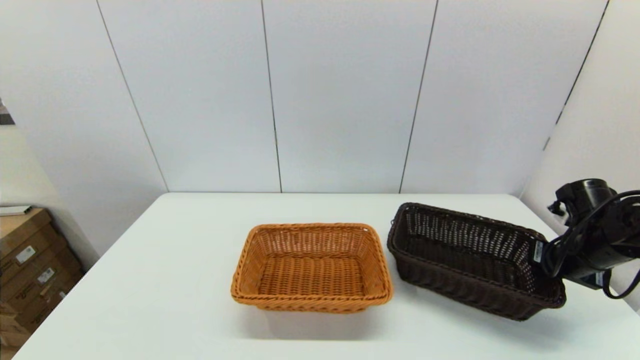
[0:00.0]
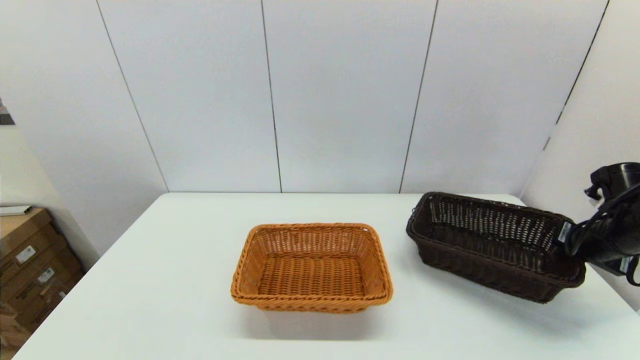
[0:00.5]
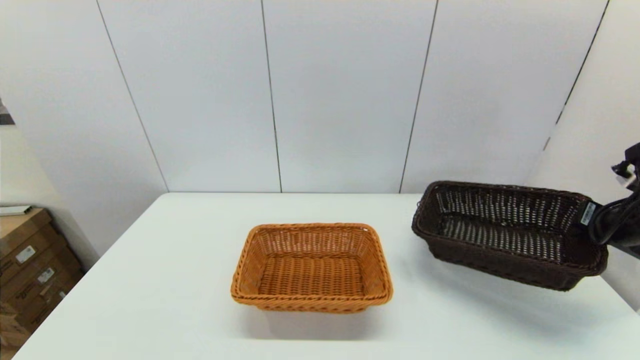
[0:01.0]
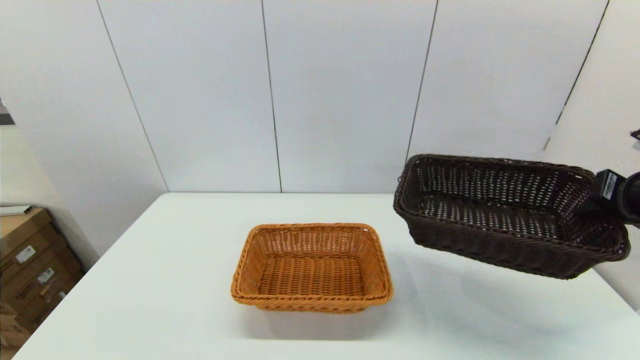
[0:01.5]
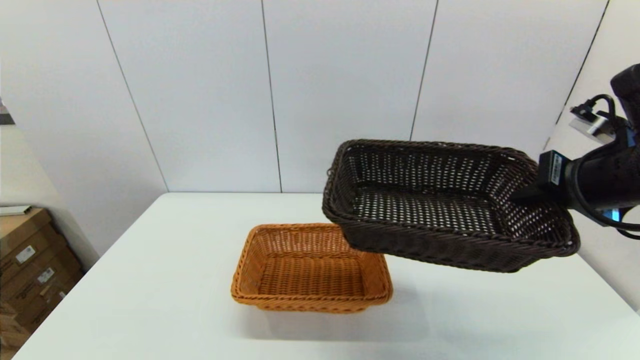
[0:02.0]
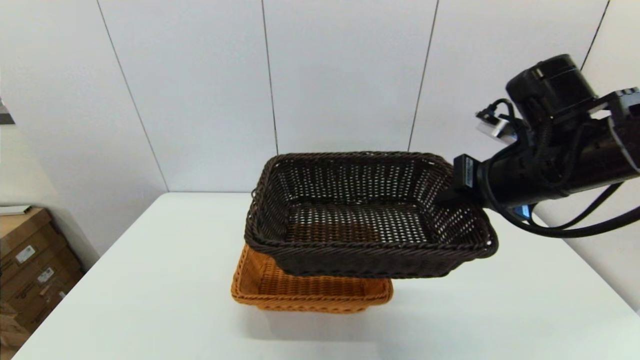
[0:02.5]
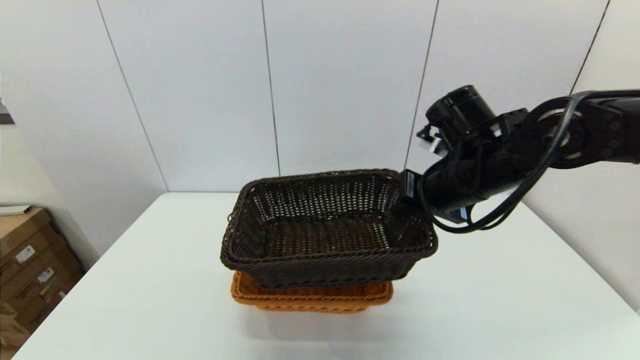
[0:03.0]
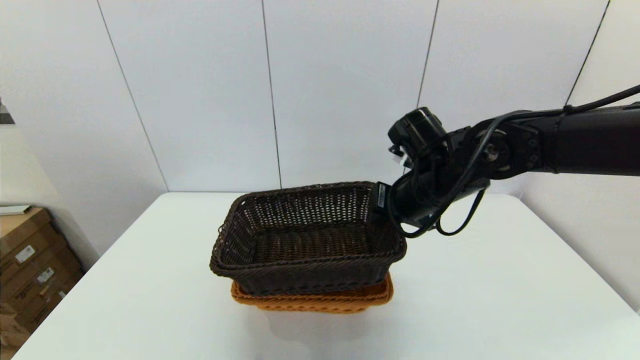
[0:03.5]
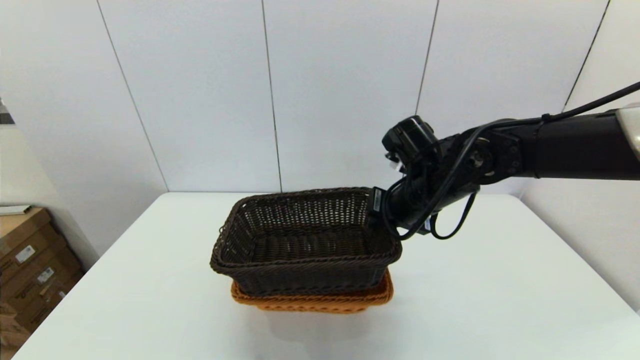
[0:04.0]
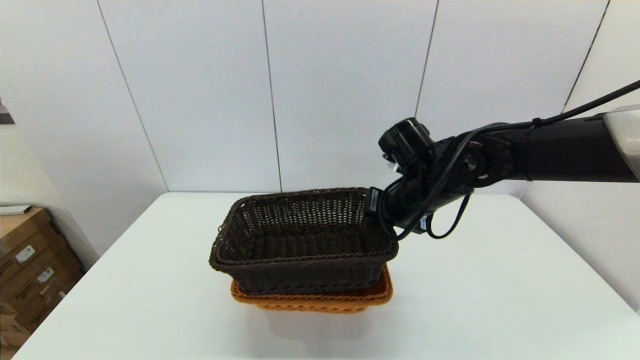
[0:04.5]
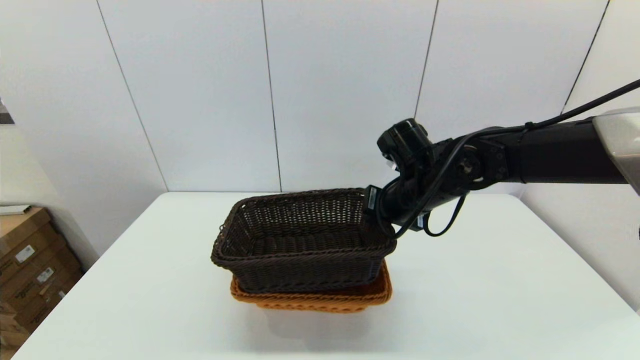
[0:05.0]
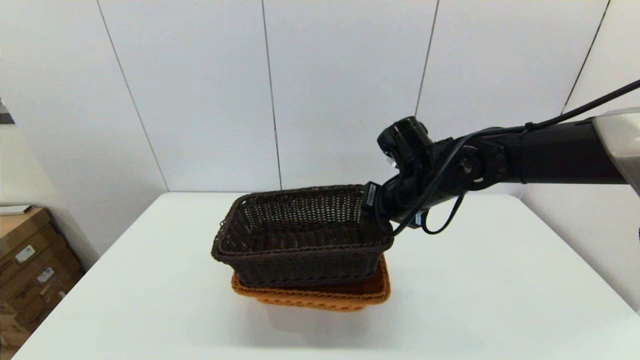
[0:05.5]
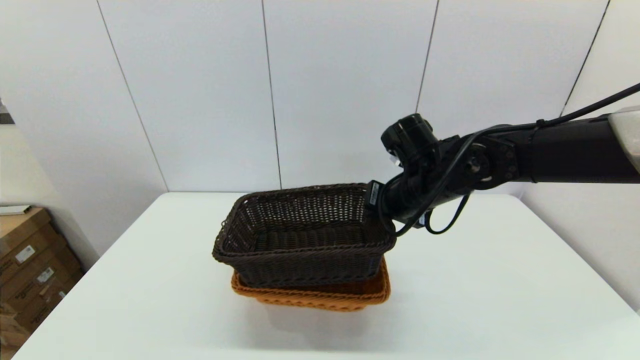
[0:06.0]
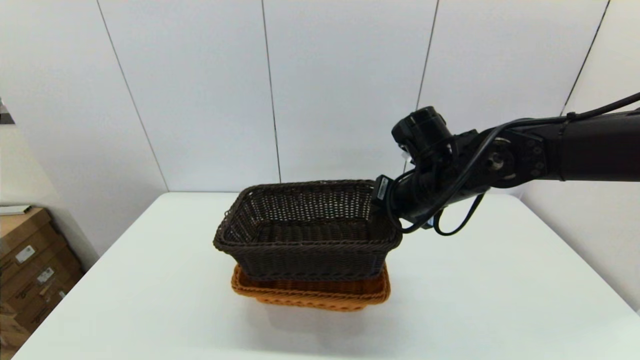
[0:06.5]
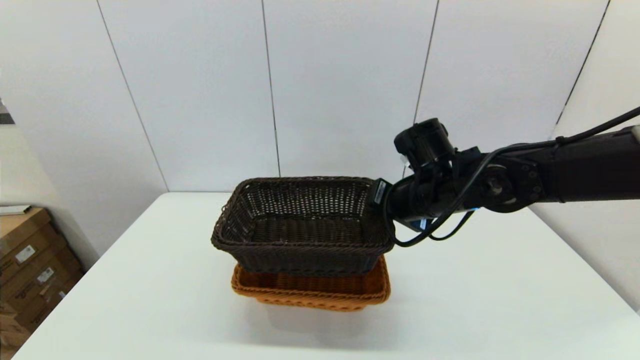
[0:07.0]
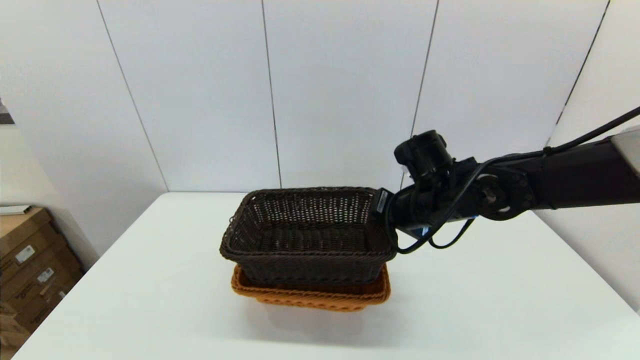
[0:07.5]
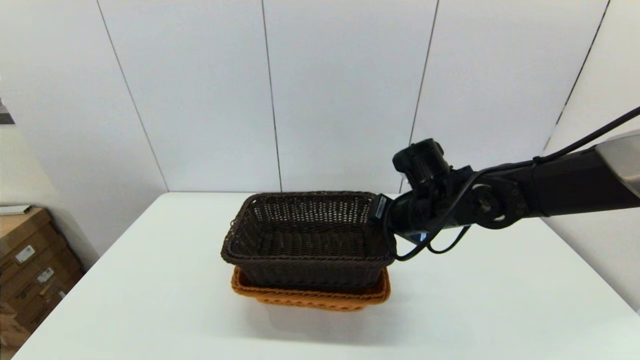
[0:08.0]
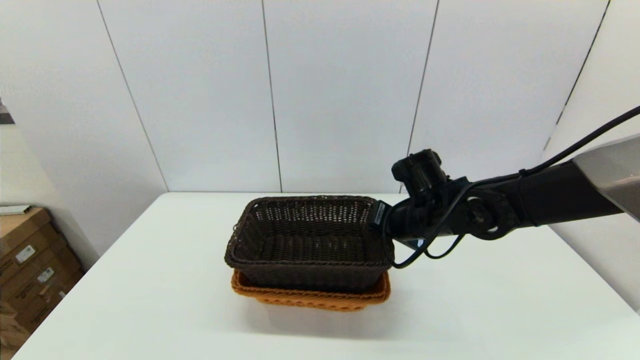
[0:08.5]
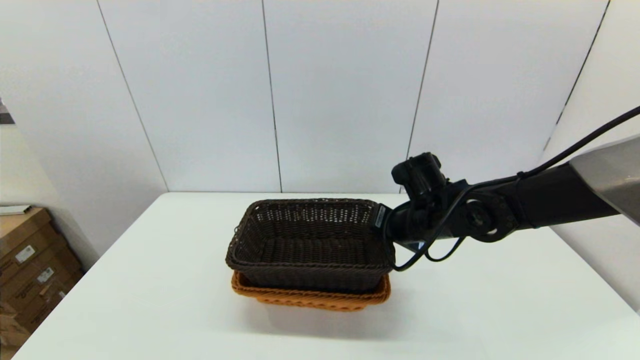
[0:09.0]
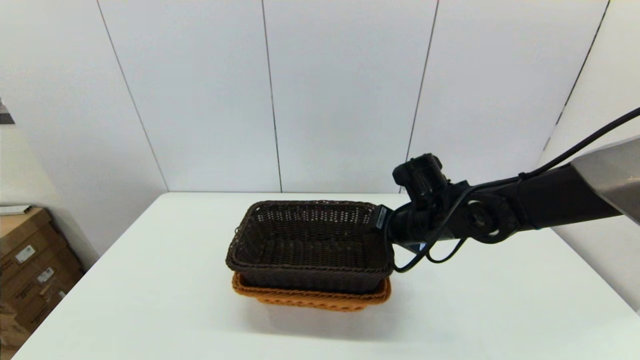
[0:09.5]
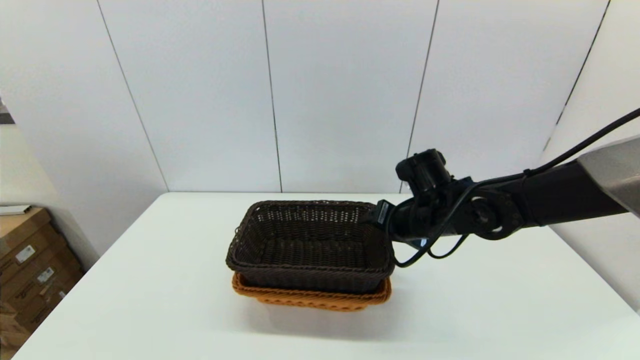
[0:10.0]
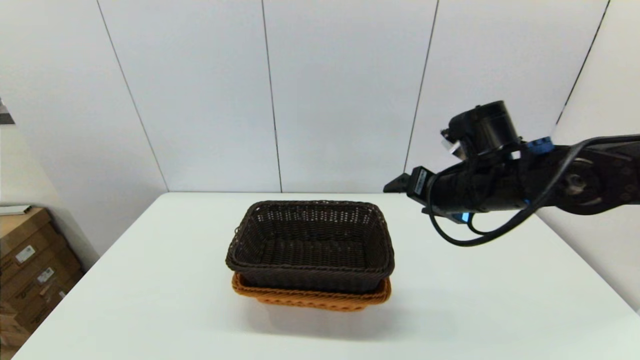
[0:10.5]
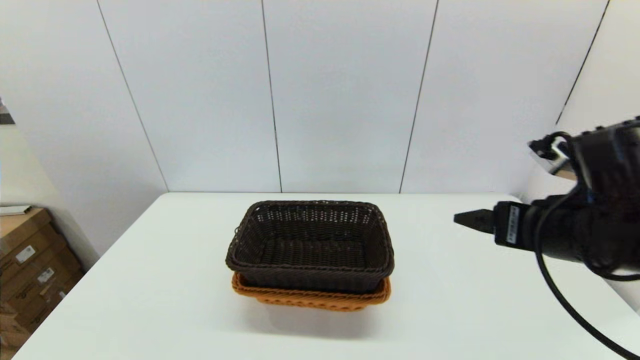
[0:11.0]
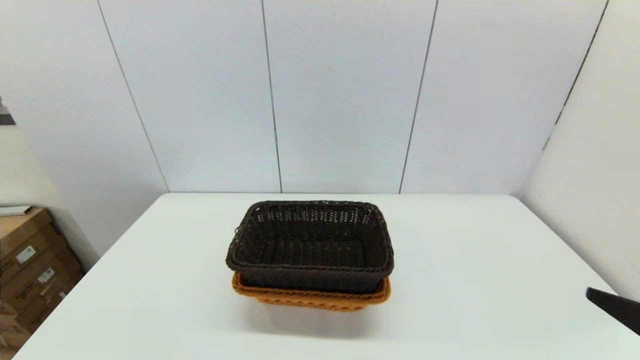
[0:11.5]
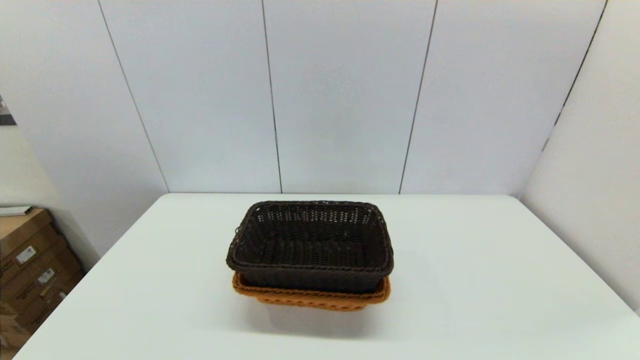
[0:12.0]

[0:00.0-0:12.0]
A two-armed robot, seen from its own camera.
Task of the whole recording: stack a basket on top of another basket.
Step, 0:00.0 to 0:10.5: Place the dark basket into the light color basket with the right gripper.
0:00.0 to 0:02.0: The right gripper shifts roughly 20 cm upward and to the left.
0:02.0 to 0:04.0: The right gripper is displaced to the left, forward and downward by some 20 cm.
0:04.0 to 0:08.0: There are only small adjustments of the grippers.
0:08.0 to 0:10.0: The right gripper opens its fingers.
0:10.0 to 0:12.0: The right gripper heads backward and to the right, covering about 40 cm.

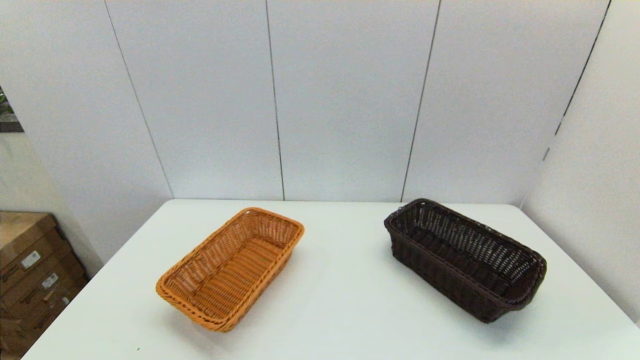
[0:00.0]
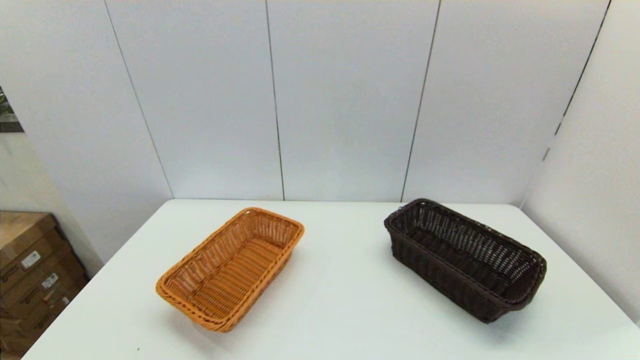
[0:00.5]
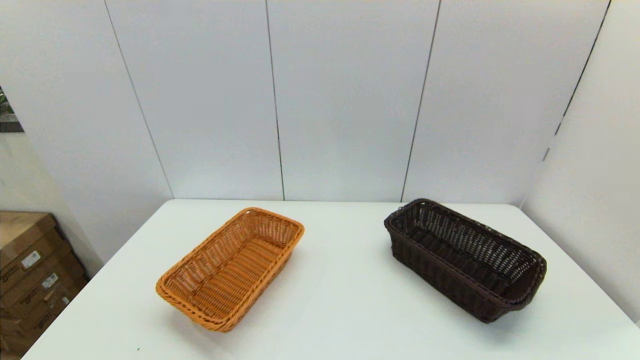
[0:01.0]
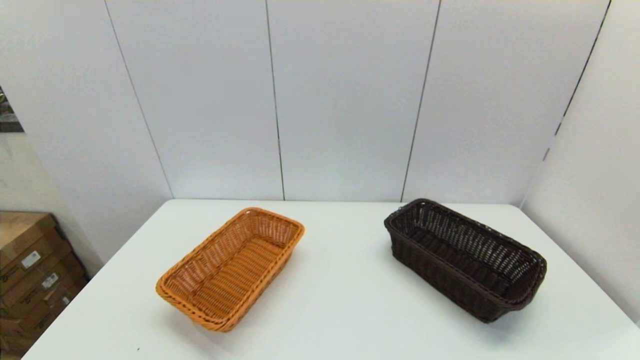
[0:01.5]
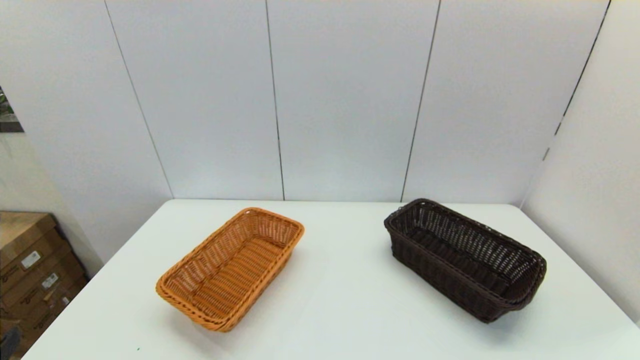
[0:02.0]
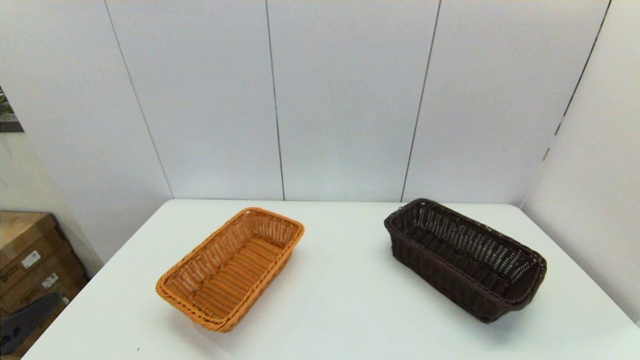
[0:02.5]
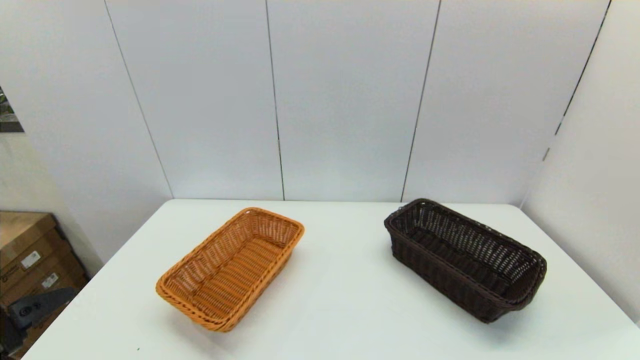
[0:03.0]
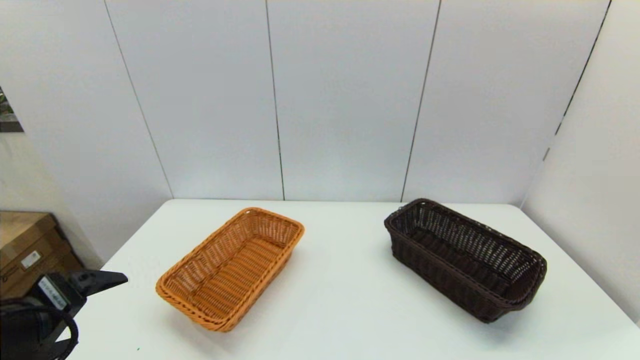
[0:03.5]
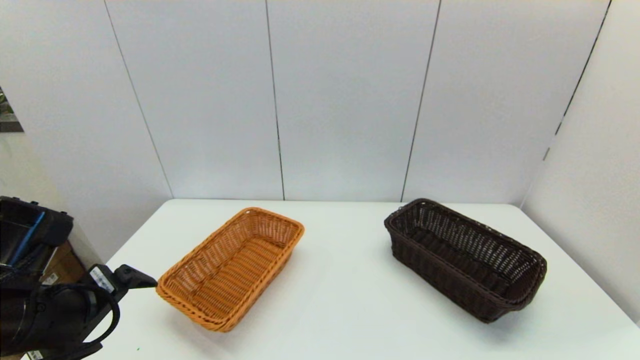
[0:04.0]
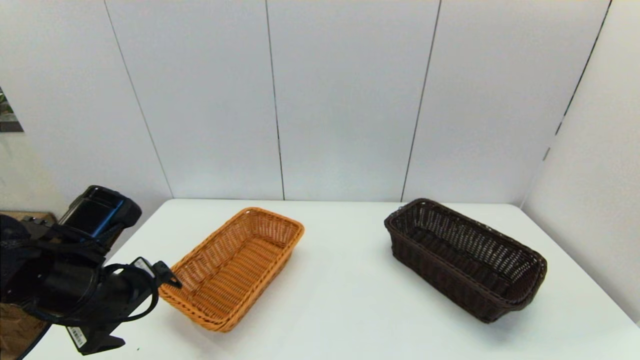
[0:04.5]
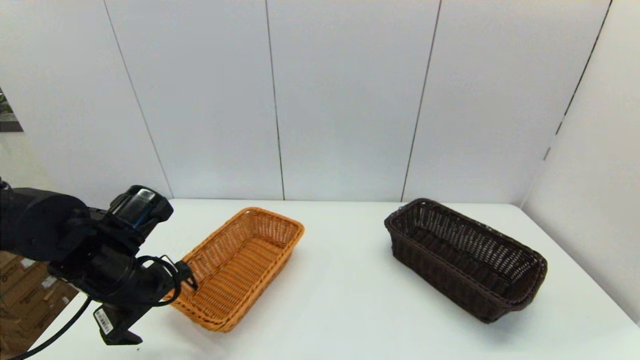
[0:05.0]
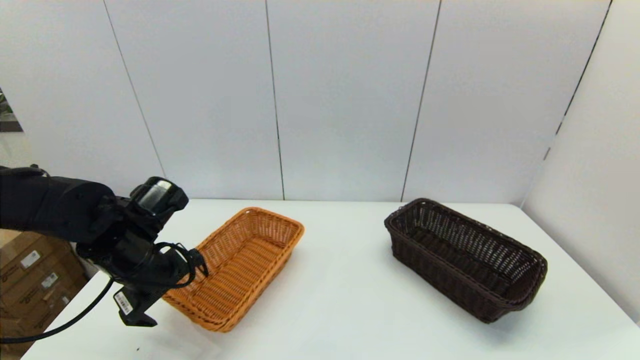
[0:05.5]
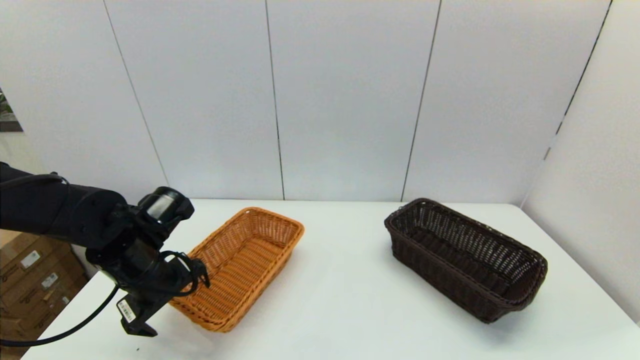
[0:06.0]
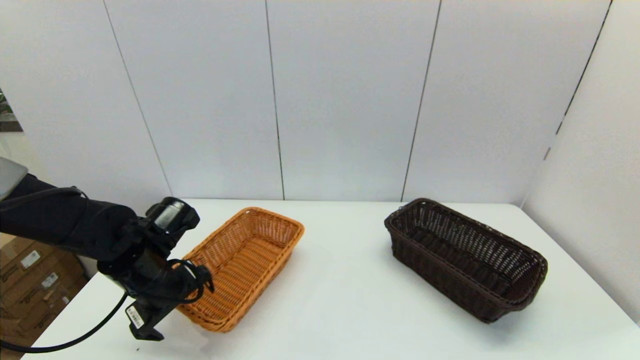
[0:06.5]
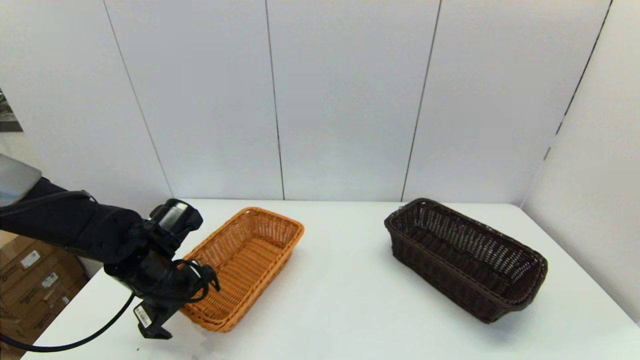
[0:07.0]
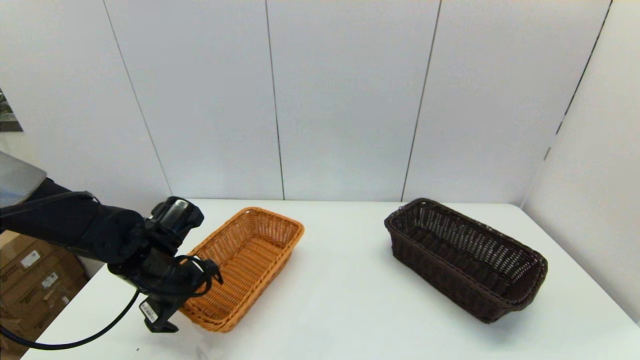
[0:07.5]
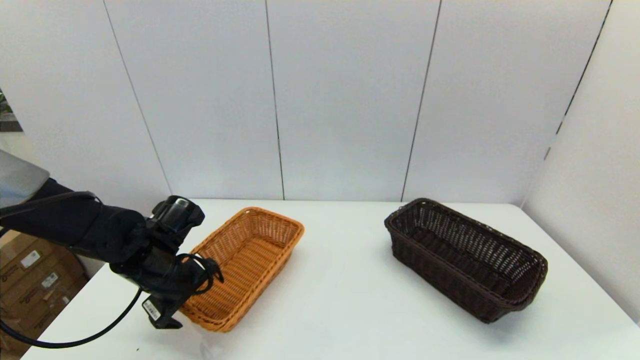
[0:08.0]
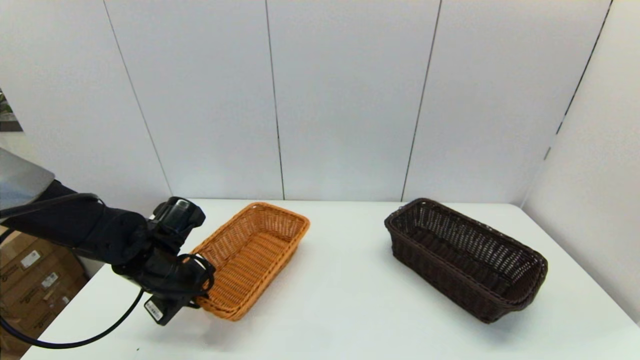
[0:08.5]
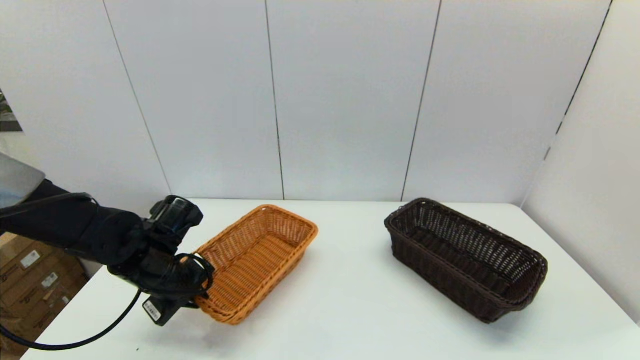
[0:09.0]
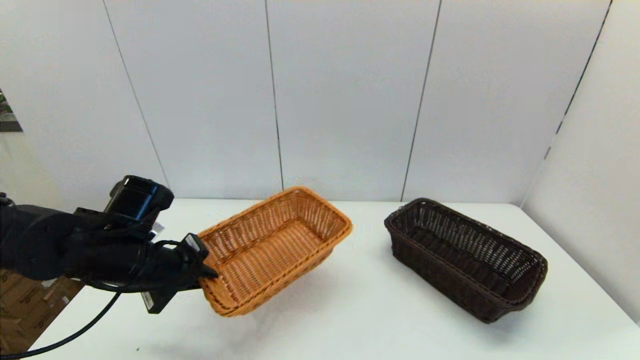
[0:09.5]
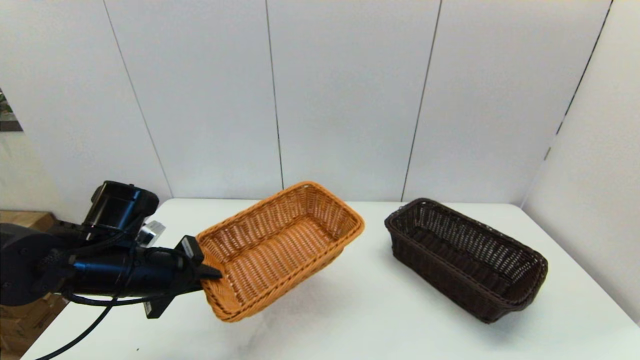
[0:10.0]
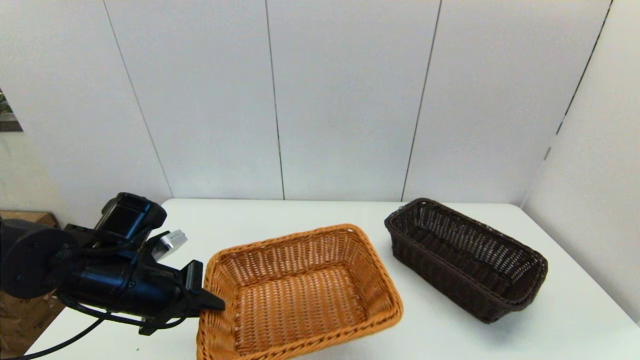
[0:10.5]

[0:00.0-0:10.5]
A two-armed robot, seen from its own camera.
Task of the whole recording: stack a basket on top of another basket.
Step, 0:02.0 to 0:09.0: Grasp the light basket with the left gripper.
0:02.0 to 0:04.0: The left gripper travels forward by roughly 15 cm.
0:04.0 to 0:06.5: The left gripper goes approximately 15 cm forward and downward.
0:06.5 to 0:08.5: The left gripper closes its fingers.
0:08.5 to 0:10.5: The left gripper shifts roughly 5 cm backward.
